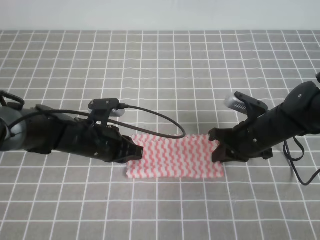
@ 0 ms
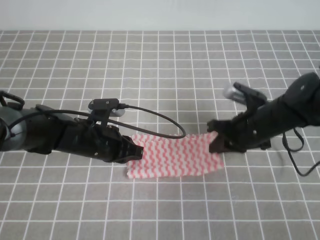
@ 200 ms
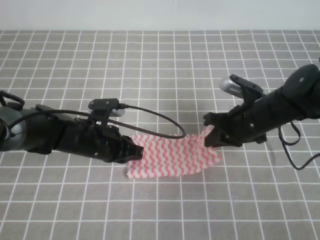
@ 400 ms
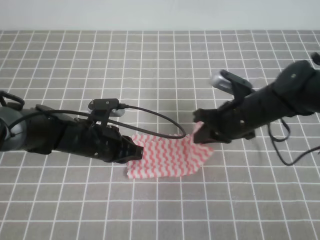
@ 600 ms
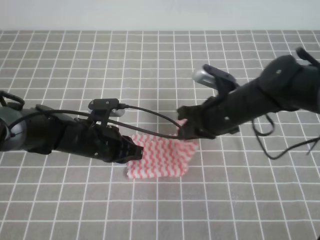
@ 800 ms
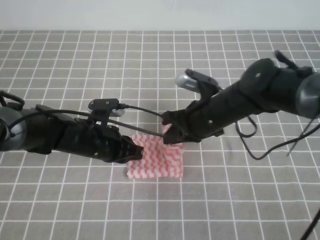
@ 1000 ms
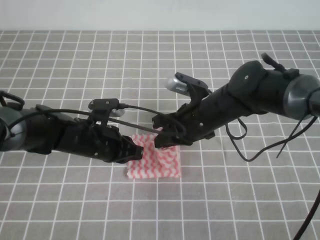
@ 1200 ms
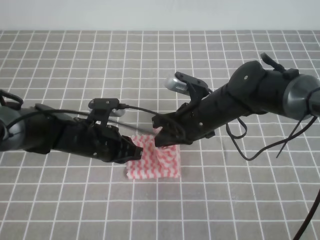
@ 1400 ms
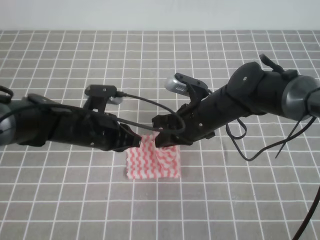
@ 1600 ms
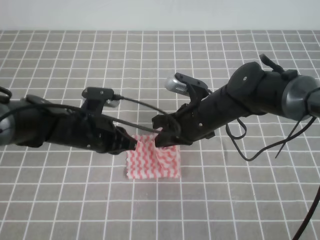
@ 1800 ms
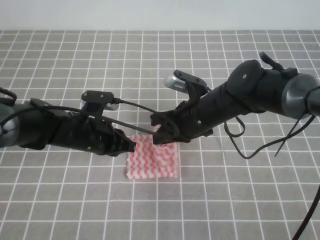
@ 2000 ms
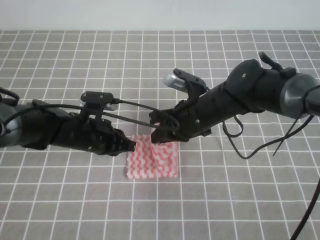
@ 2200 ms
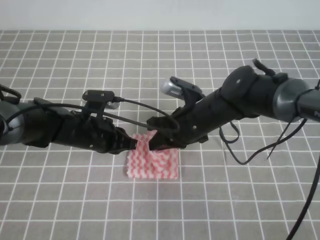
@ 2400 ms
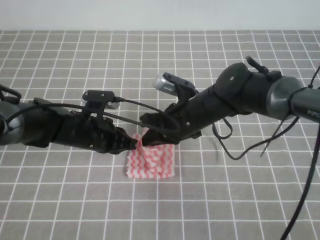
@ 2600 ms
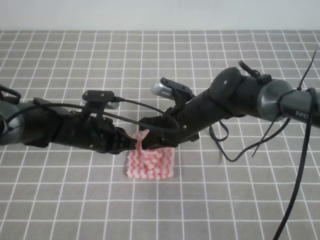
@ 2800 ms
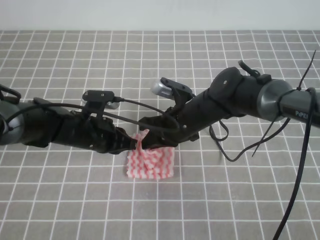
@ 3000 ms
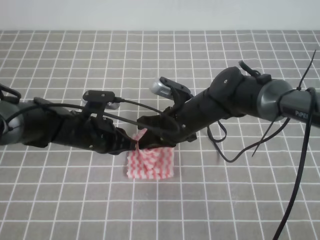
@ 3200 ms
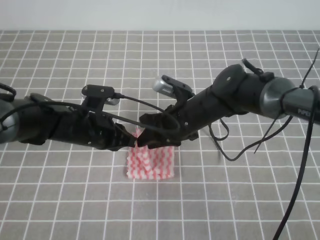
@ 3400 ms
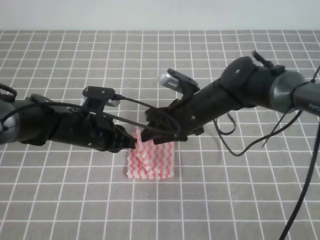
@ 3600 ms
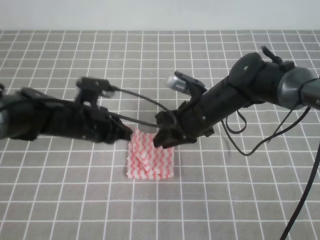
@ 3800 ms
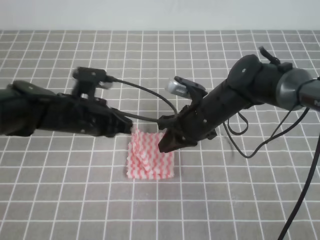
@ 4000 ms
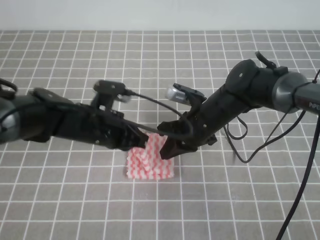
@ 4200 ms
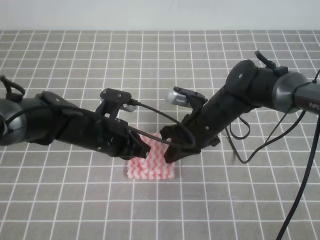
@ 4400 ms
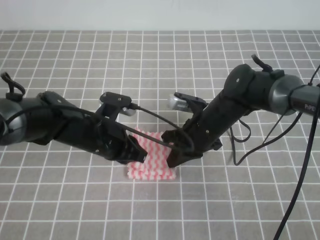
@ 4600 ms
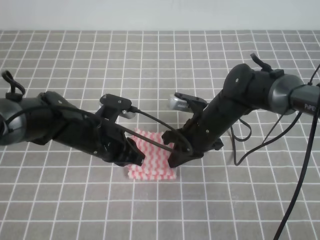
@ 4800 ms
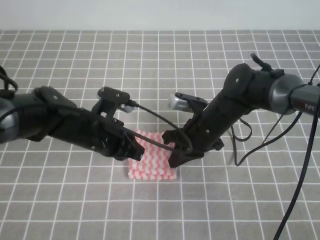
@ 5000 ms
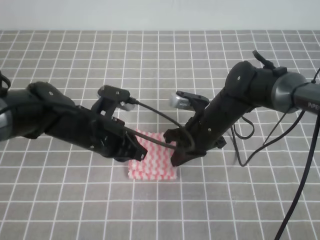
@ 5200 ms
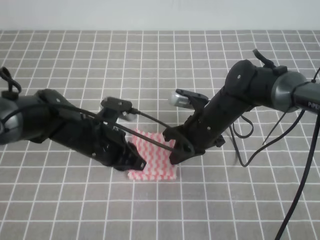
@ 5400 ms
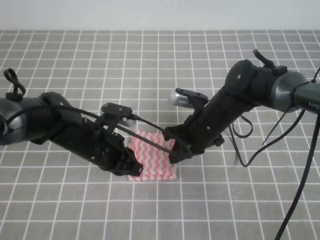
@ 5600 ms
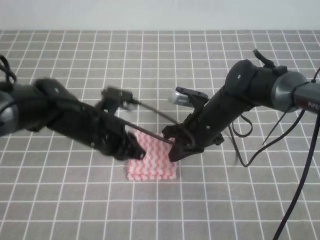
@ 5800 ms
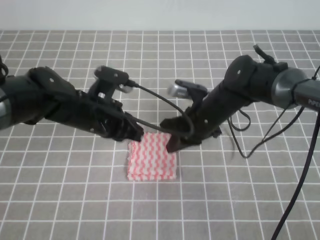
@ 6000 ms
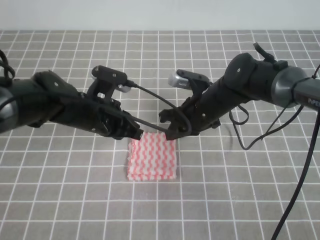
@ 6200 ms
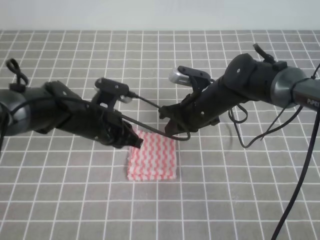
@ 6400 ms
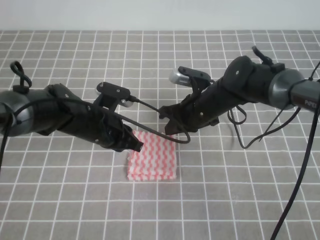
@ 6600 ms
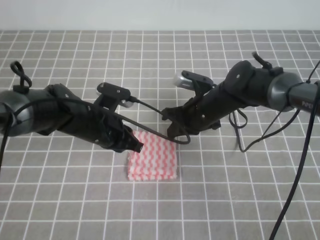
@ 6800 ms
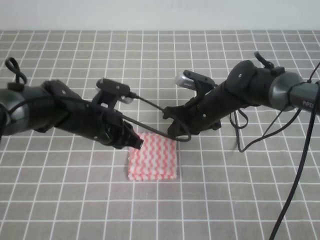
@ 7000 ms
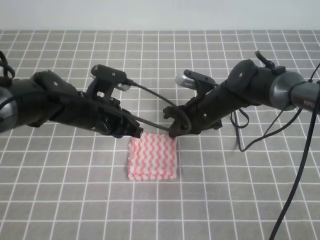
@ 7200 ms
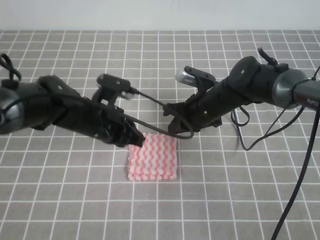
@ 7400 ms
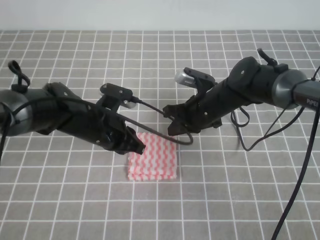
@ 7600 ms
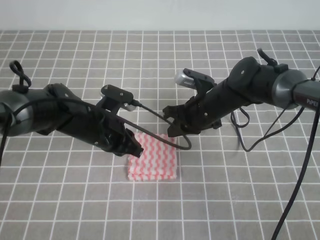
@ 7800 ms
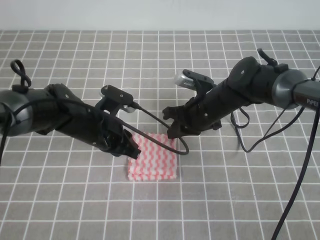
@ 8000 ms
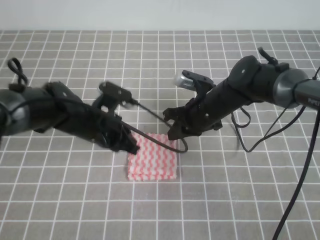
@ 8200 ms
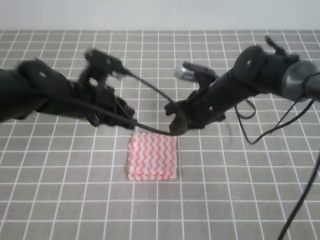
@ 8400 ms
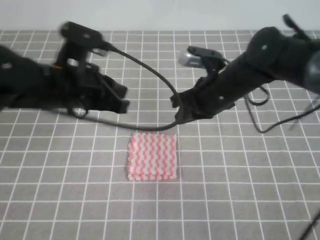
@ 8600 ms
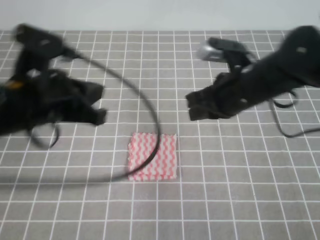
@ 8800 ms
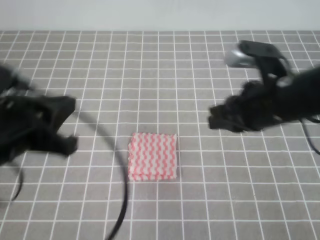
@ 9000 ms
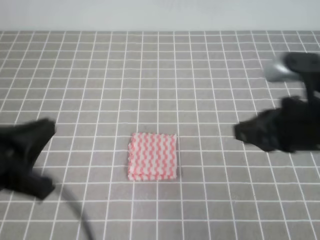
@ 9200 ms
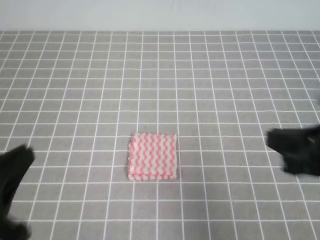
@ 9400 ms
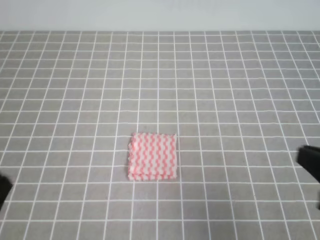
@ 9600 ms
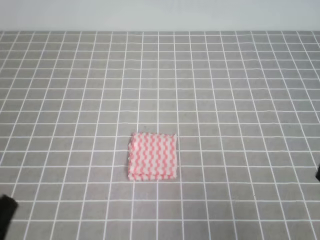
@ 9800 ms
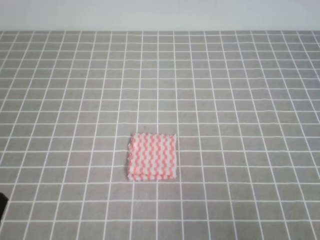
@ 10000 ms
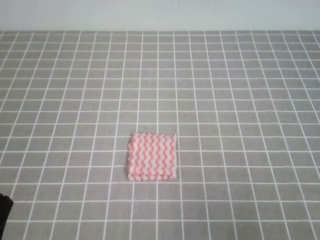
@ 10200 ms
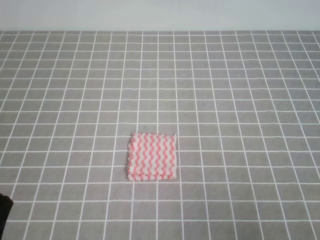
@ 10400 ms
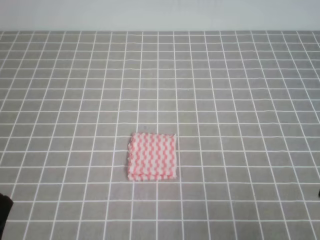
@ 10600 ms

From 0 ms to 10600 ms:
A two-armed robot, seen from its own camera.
From 0 ms to 1600 ms: The right gripper is displaced to the left by roughly 10 cm.
From 1600 ms to 3000 ms: There are only small adjustments of the grippers.
From 3000 ms to 4600 ms: The right gripper opens, then closes once more.
From 6000 ms to 7600 ms: The grippers make only small movements.
From 7600 ms to 9000 ms: The left gripper heads backward, upward and to the left, covering some 20 cm. Meanwhile the right gripper moves upward, backward and to the right, some 20 cm.
From 9000 ms to 10600 ms: The right gripper goes about 25 cm backward and to the right. The left gripper is displaced backward, downward and to the left by roughly 20 cm.

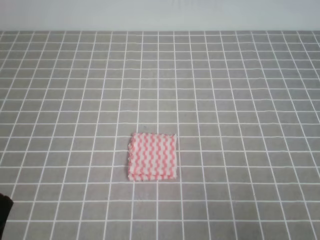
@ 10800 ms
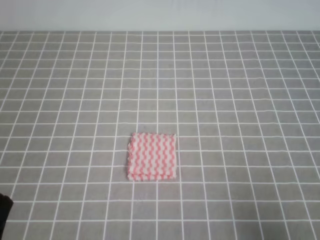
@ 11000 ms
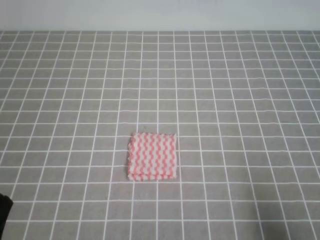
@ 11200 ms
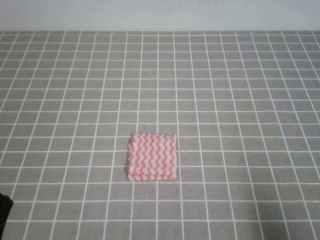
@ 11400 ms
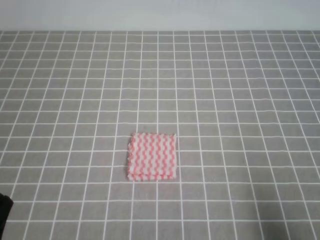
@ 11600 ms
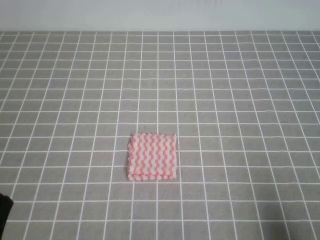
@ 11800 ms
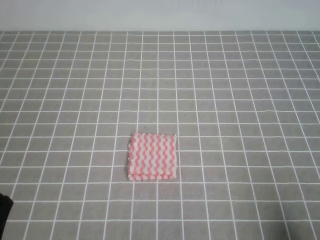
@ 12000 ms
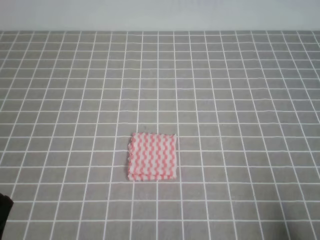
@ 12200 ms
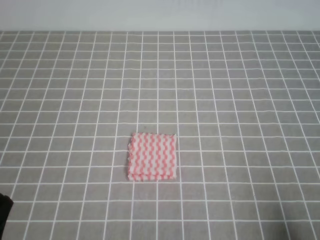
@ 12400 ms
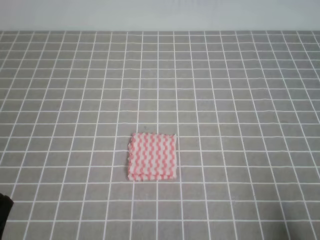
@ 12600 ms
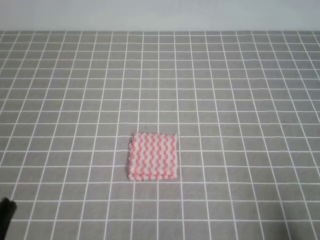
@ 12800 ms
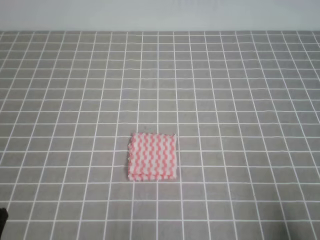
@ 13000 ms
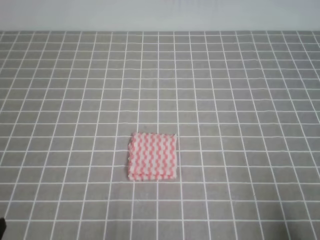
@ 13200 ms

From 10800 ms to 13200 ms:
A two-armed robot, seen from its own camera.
From 10800 ms to 12000 ms: The right gripper heads downward, covering some 5 cm.
